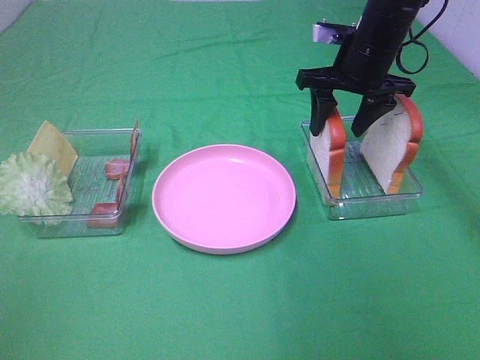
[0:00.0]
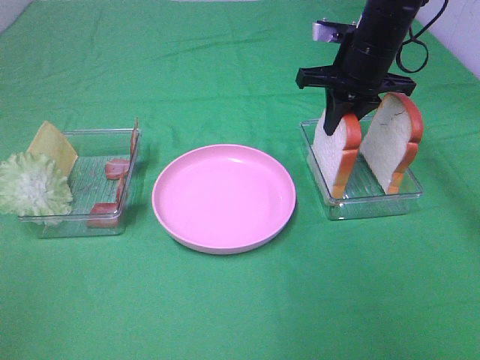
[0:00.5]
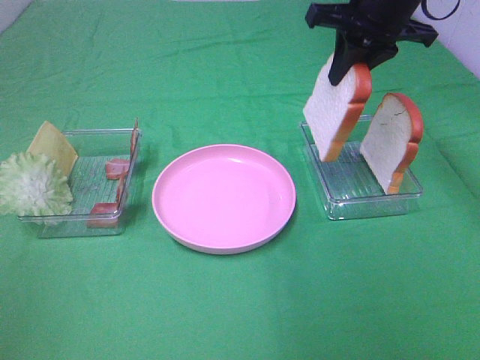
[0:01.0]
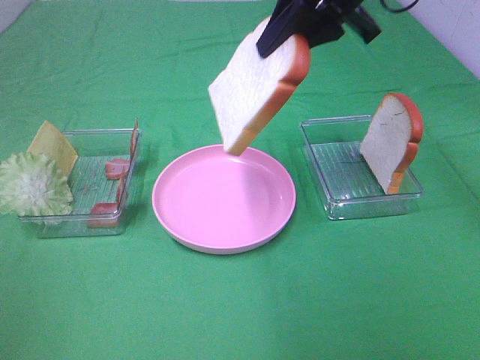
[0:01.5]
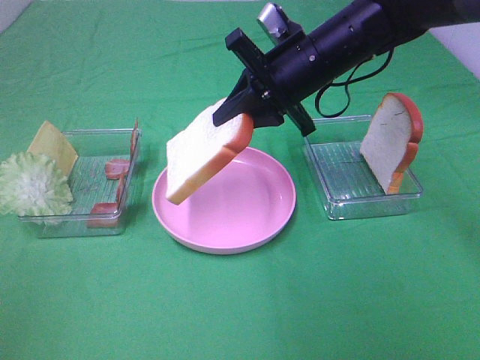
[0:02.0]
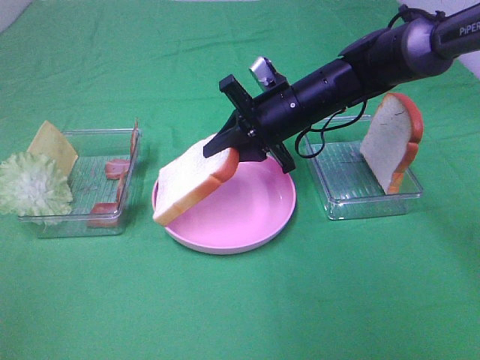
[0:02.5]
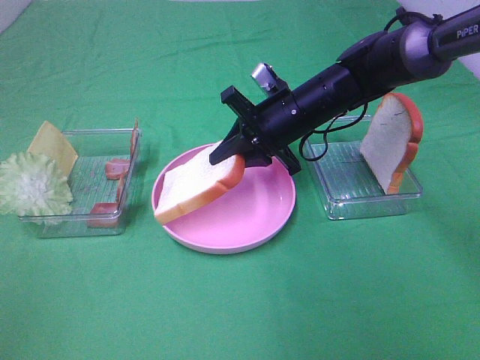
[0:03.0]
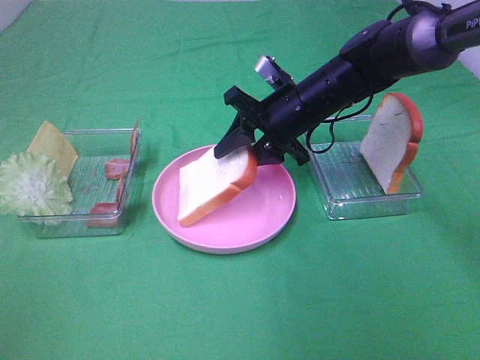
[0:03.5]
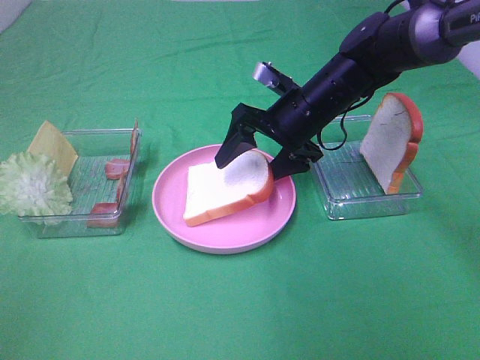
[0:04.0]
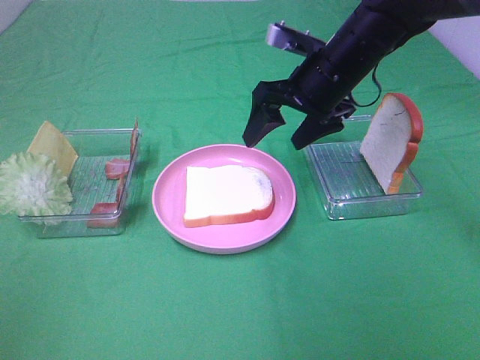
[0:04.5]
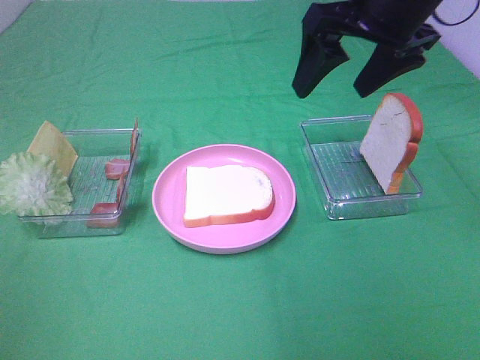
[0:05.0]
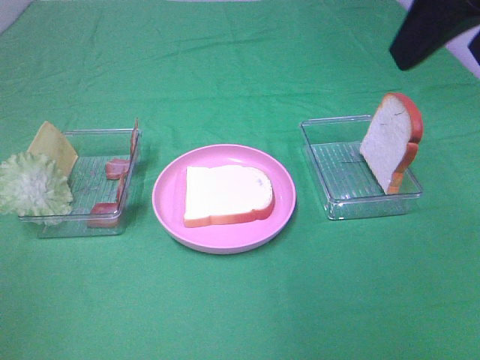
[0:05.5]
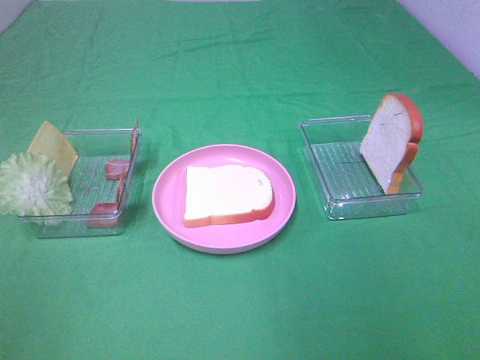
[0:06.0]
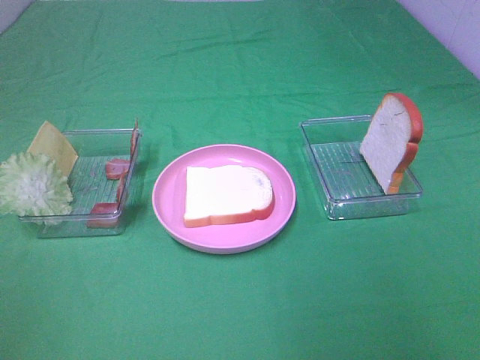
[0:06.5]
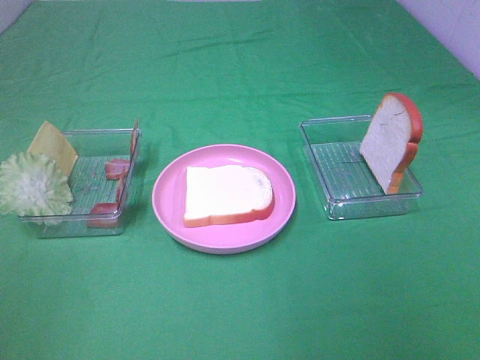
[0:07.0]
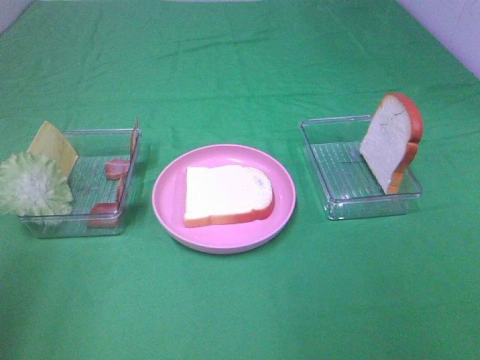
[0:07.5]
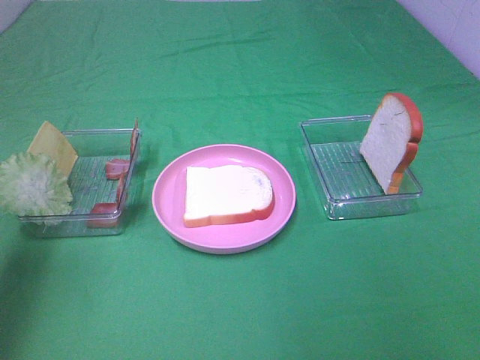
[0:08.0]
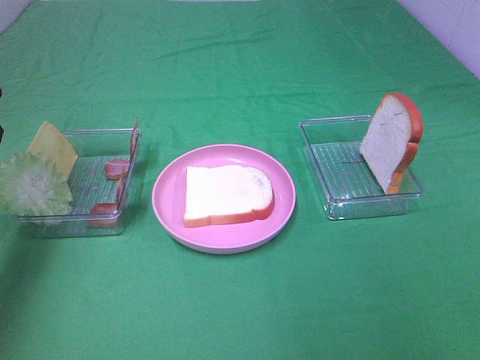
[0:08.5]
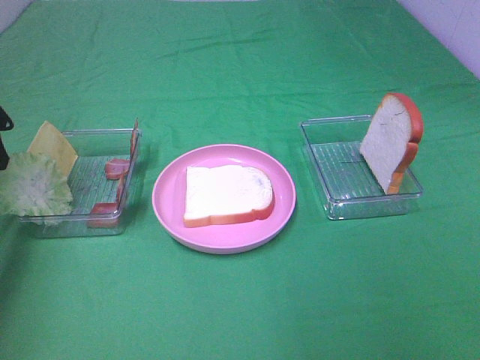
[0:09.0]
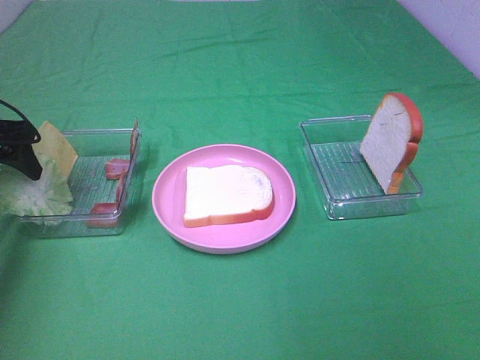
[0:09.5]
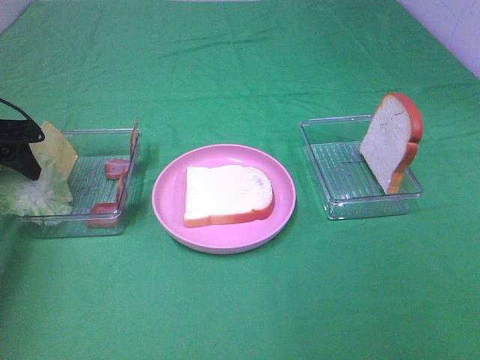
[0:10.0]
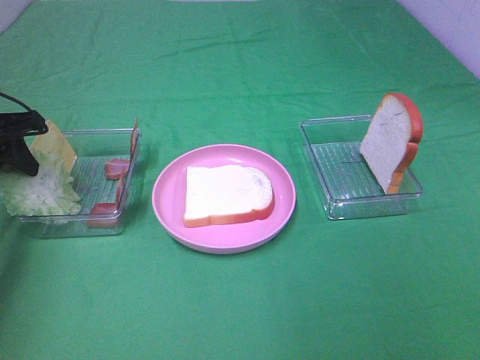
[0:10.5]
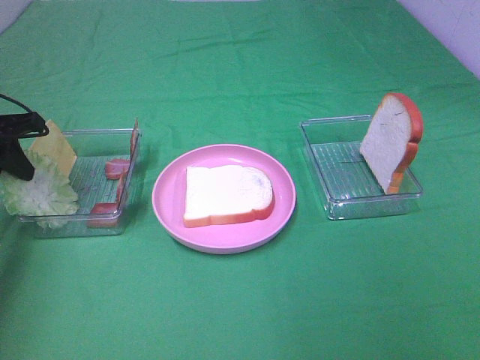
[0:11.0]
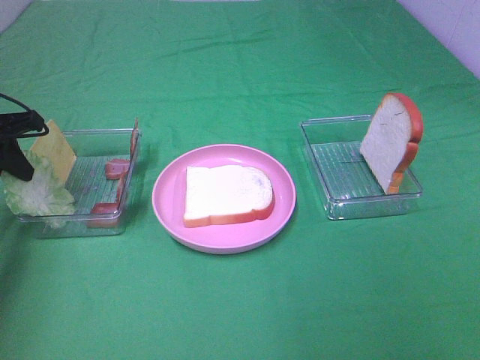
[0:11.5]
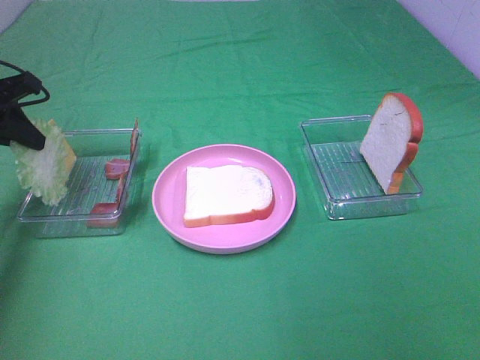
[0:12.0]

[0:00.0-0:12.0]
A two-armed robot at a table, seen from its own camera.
Task of the whole recording: Make sandwiches.
Step, 0.5 to 4.0 s: Right hand:place the bread slice on the plate.
Step, 4.5 to 11.0 s: Left hand:grab the lettuce slice.
0.0 to 2.0 s: The right gripper moves to the left and backward, approximately 10 cm, goes upward and returns, approximately 10 cm each way, and closes its fingers.
2.0 to 4.0 s: The right gripper goes approximately 5 cm downward, and opens up.
4.0 to 6.0 s: The right gripper shifts roughly 40 cm backward, upward and to the right.
6.0 to 8.0 s: The left gripper moves forward, about 20 cm.
8.0 to 10.0 s: The left gripper travels forward and downward by about 20 cm.
10.0 to 12.0 s: The left gripper ends up about 5 cm from where it was, and closes.

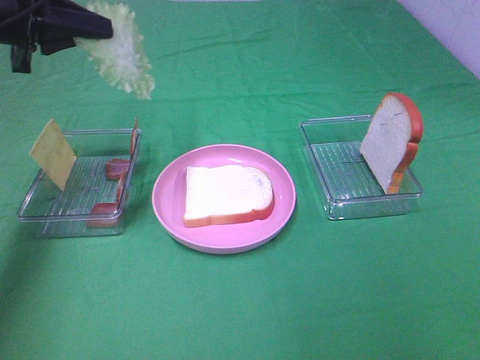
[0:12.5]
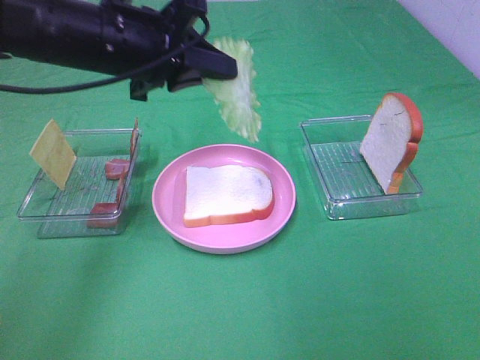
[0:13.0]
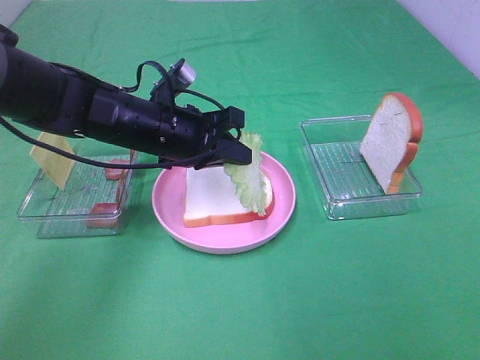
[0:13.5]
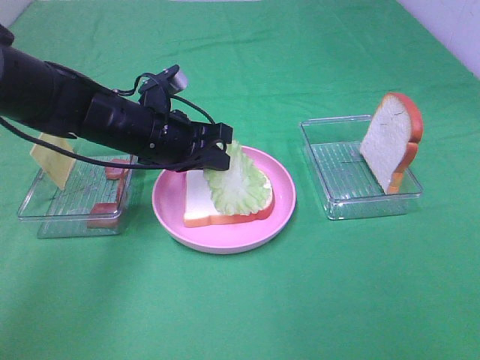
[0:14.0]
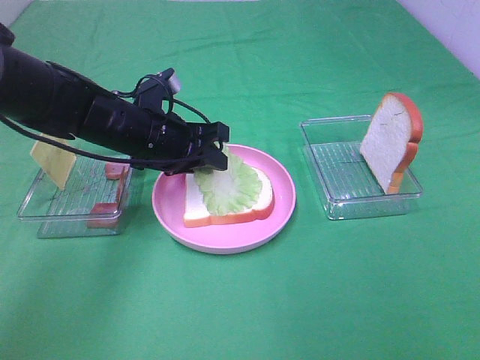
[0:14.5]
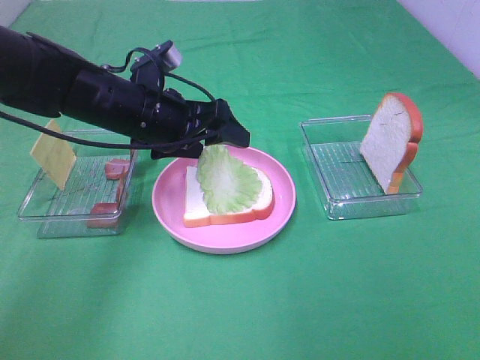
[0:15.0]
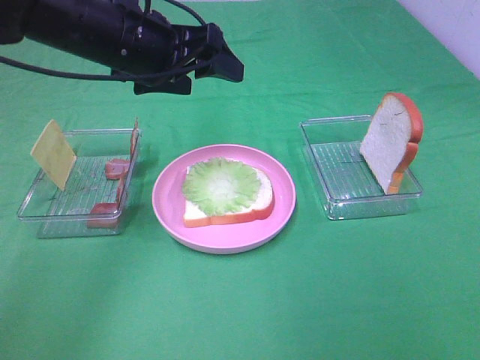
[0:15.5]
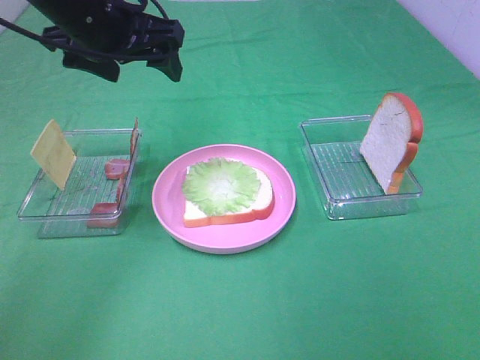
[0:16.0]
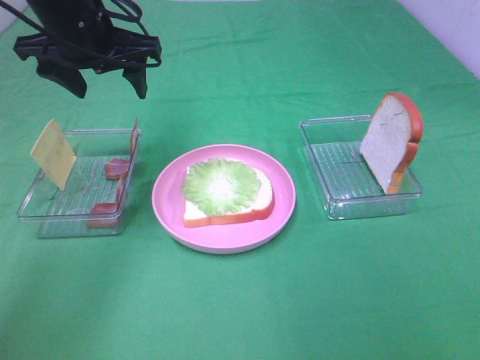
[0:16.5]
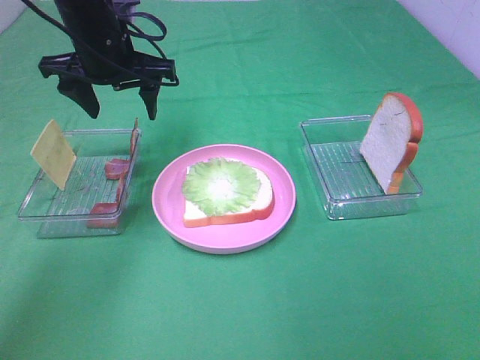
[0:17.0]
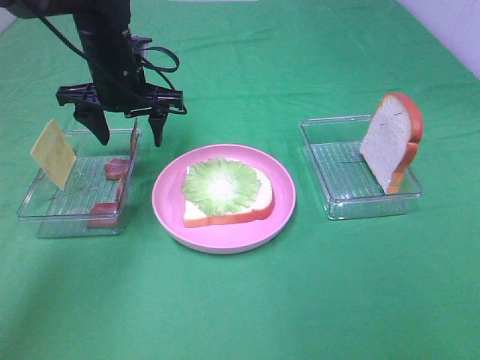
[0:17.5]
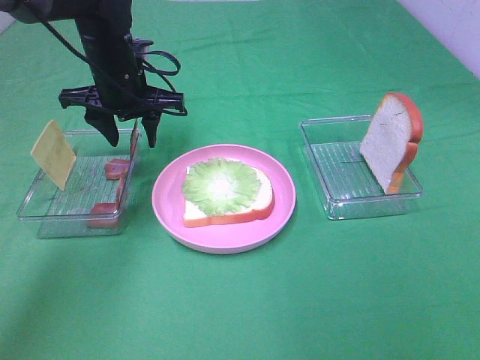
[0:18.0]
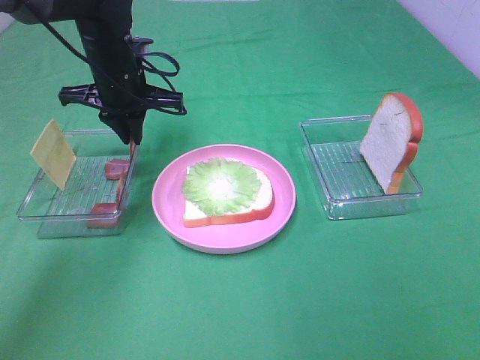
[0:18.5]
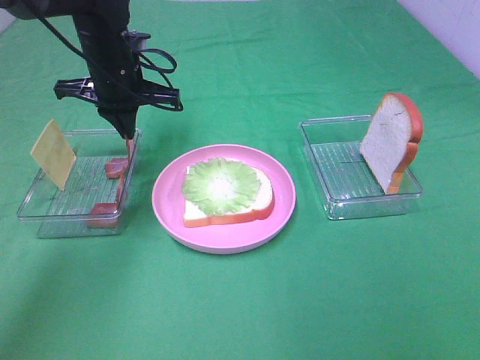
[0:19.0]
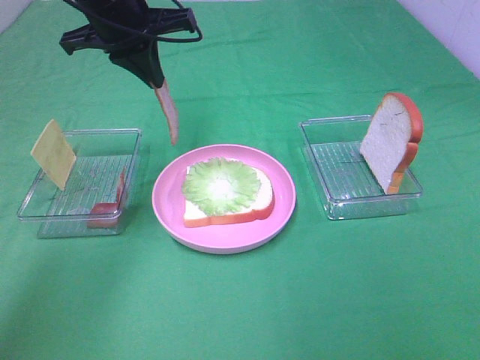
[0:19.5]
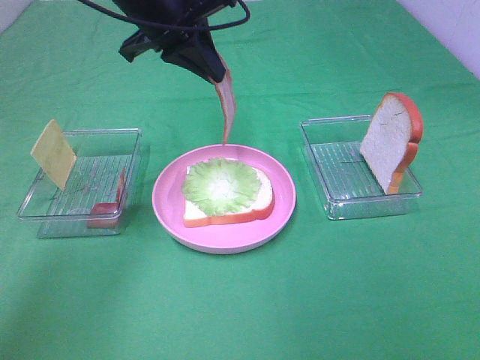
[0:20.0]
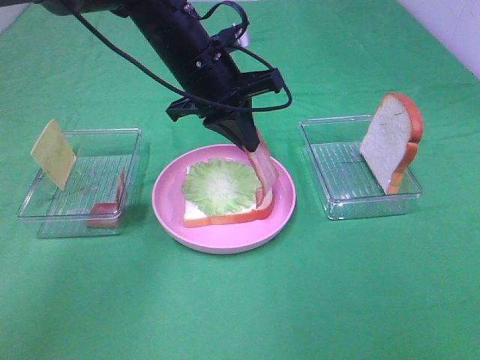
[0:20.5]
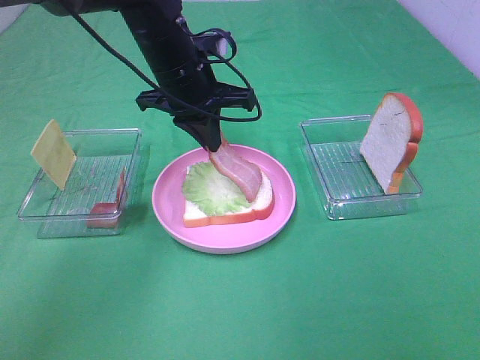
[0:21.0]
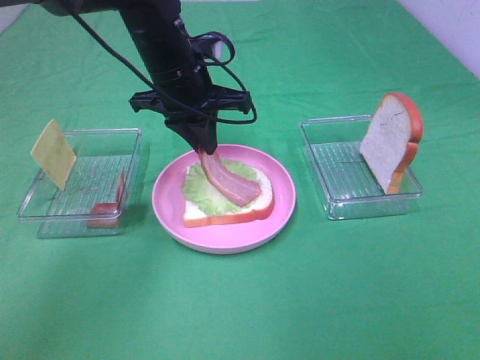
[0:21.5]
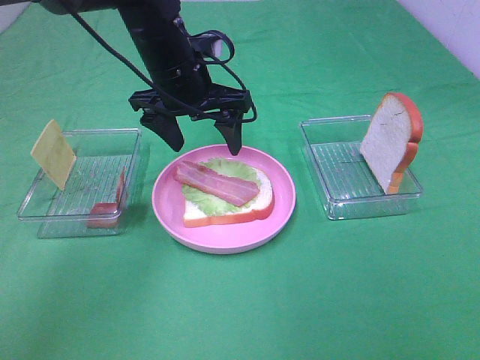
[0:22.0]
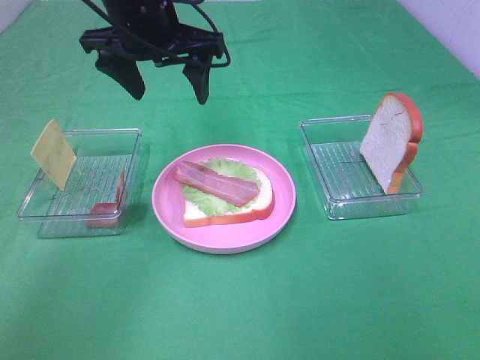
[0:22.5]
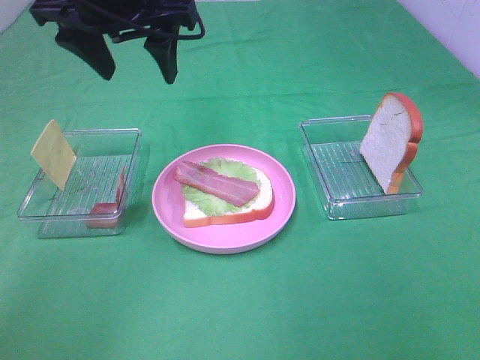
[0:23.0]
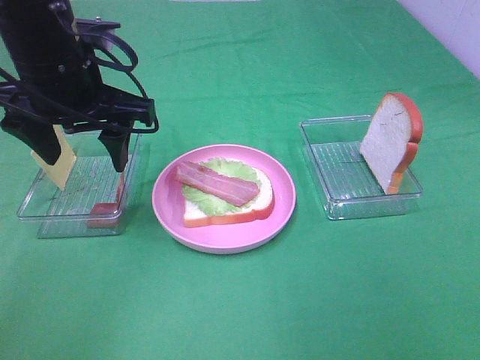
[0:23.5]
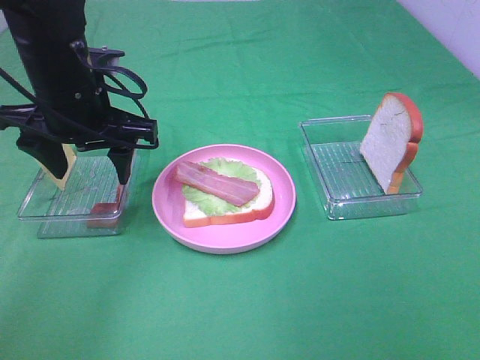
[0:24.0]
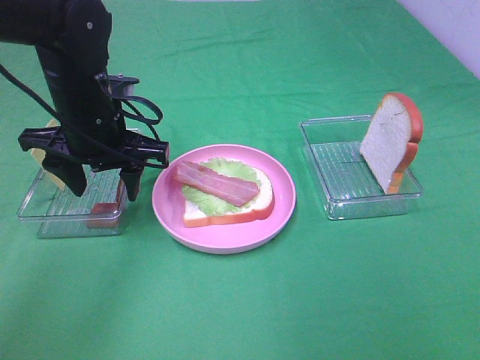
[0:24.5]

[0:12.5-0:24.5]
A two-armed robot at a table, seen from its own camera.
Task of the whole recording: Make sandwiches.
Step, 12.5 to 15.0 s: Left hand:place the lettuce slice on the bread slice.
Step, 15.5 to 18.5 s: Left hand:grab the bacon.
Step, 19.0 to 21.5 s: Left hand:place bacon on lettuce slice.
12.5 to 14.5 s: The left gripper is displaced downward and to the right by about 20 cm, and opens its fingers.
14.5 to 16.5 s: The left gripper shifts about 15 cm upward, and opens up.
16.5 to 18.5 s: The left gripper shifts approximately 10 cm downward, and closes up.
18.5 to 20.5 s: The left gripper moves to the right and backward, roughly 10 cm.
20.5 to 22.5 s: The left gripper shifts about 10 cm upward and to the left, and opens up.
22.5 to 24.5 s: The left gripper goes approximately 10 cm downward and to the left.

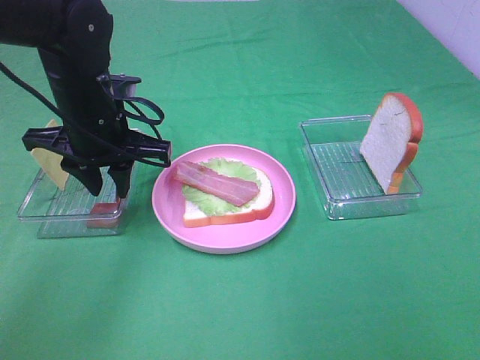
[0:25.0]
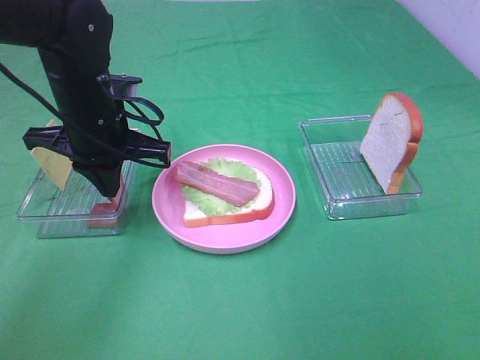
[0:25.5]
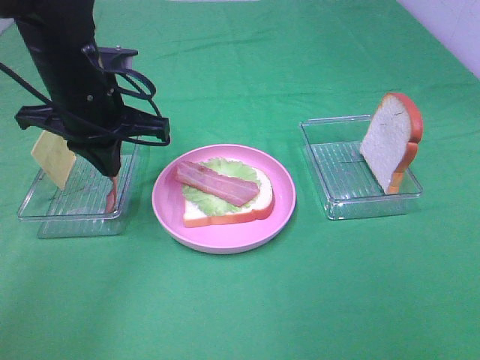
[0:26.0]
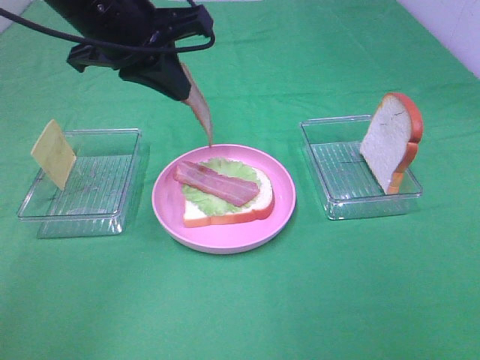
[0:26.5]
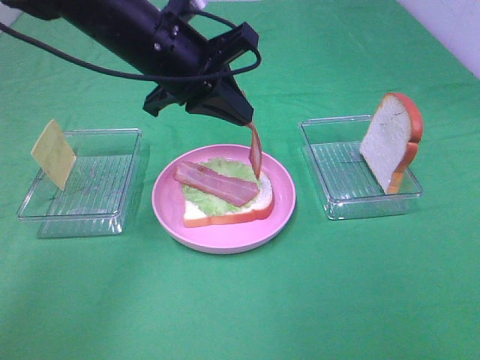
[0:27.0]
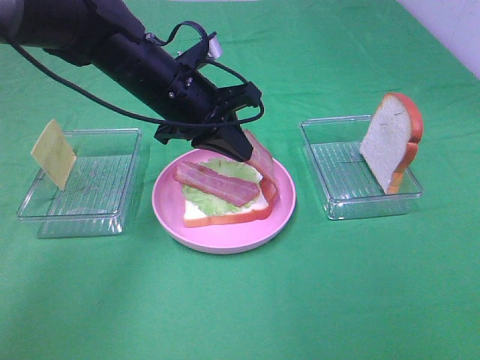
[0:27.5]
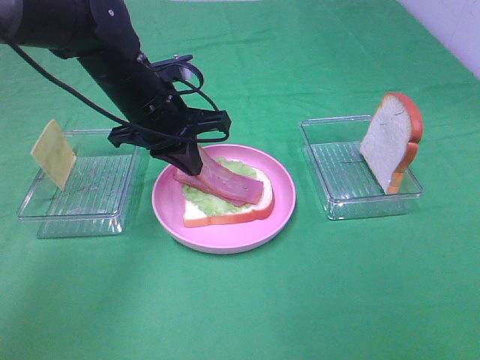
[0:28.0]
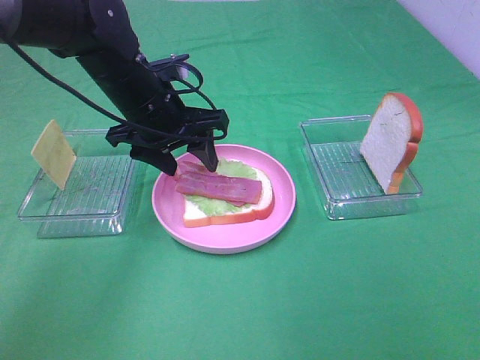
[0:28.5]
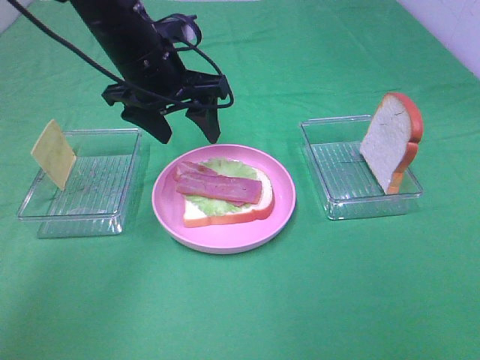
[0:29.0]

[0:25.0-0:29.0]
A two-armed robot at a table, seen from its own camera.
Task of the whole recording: Make sandwiches.
Step, 26.0 to 28.5 s: Left hand:place bacon on bacon.
25.0 to 27.0 s: The left gripper goes about 10 cm to the right and upward, and closes its fingers.
27.0 to 29.0 s: The left gripper opens up.
